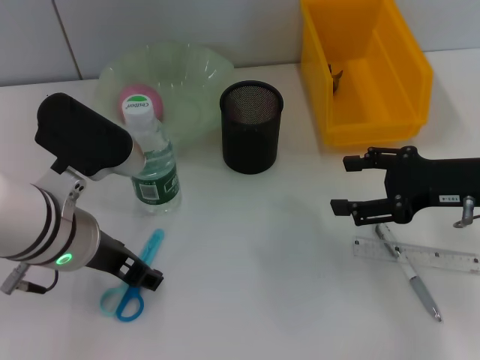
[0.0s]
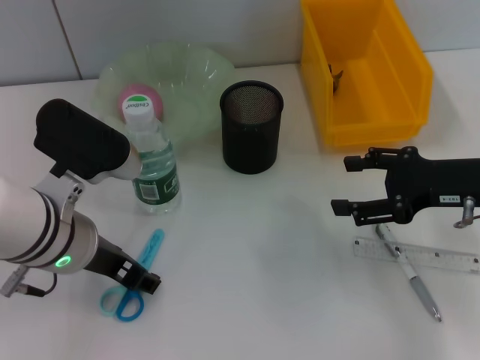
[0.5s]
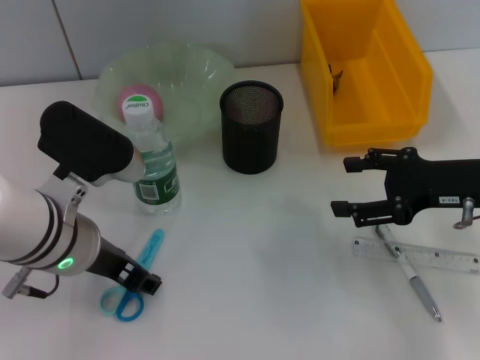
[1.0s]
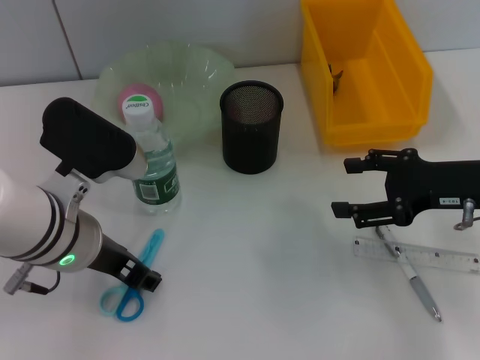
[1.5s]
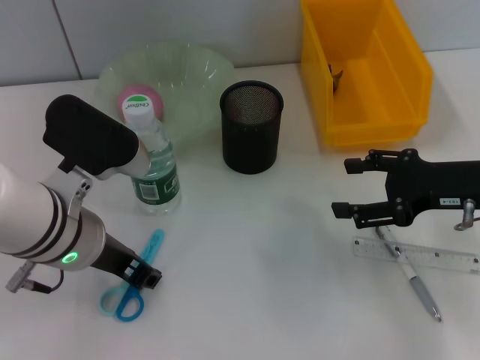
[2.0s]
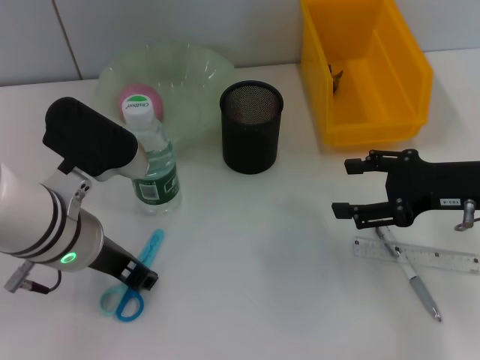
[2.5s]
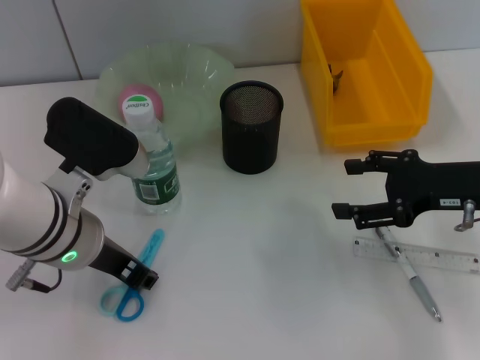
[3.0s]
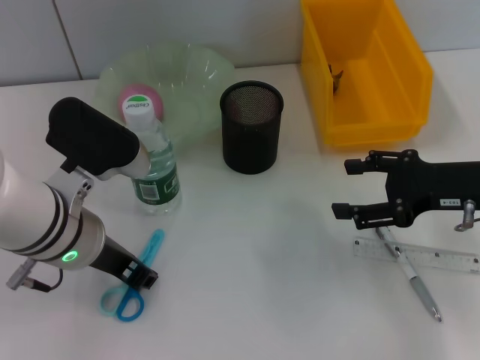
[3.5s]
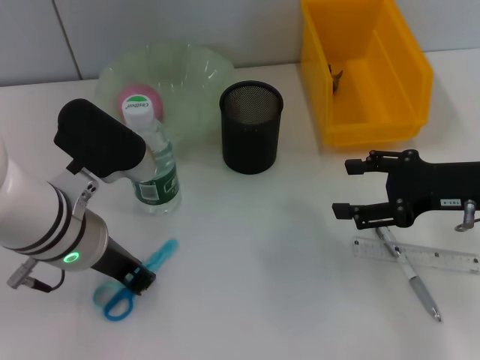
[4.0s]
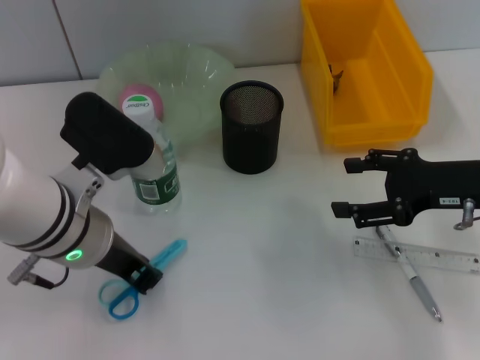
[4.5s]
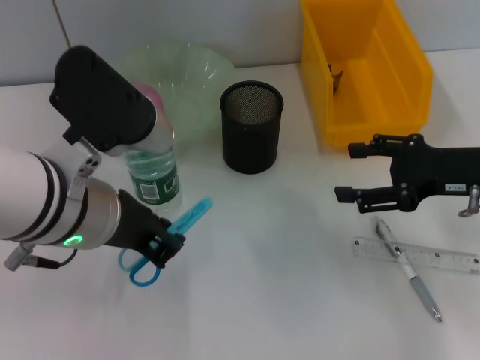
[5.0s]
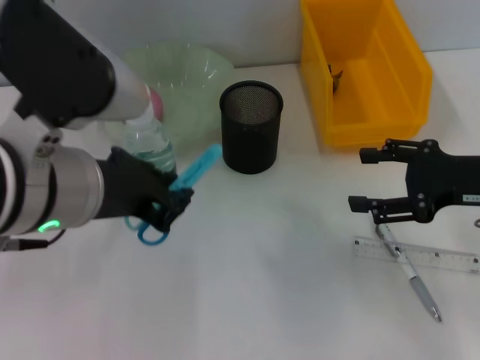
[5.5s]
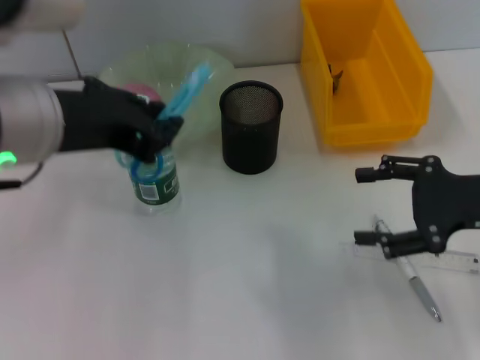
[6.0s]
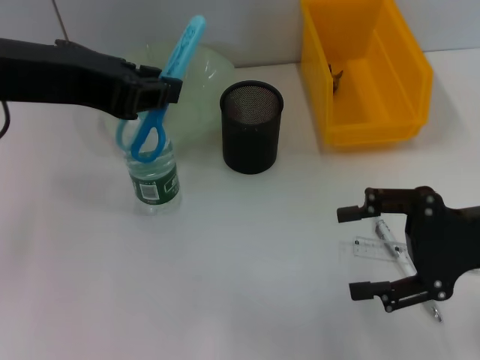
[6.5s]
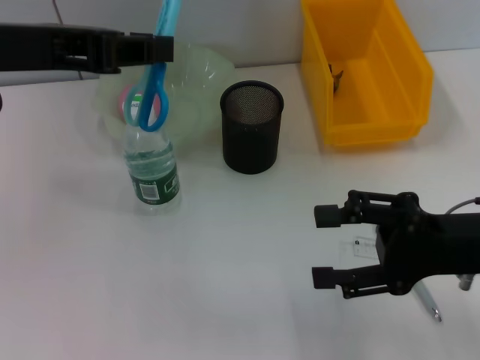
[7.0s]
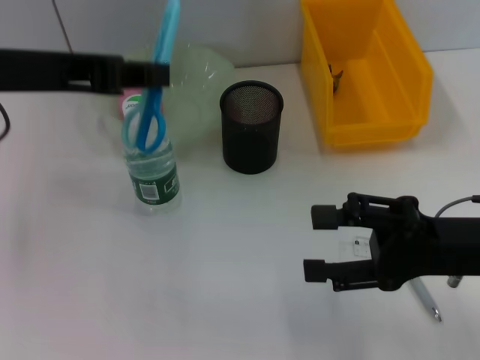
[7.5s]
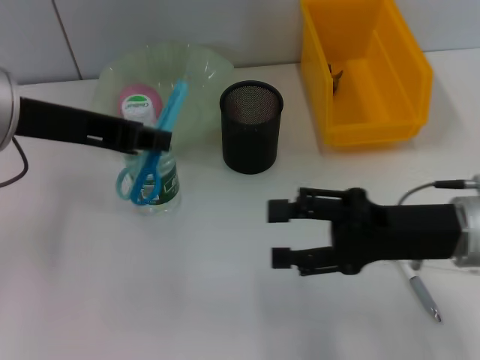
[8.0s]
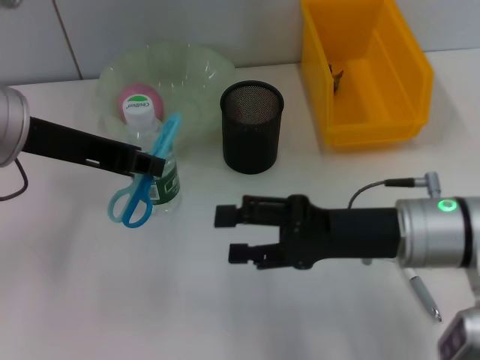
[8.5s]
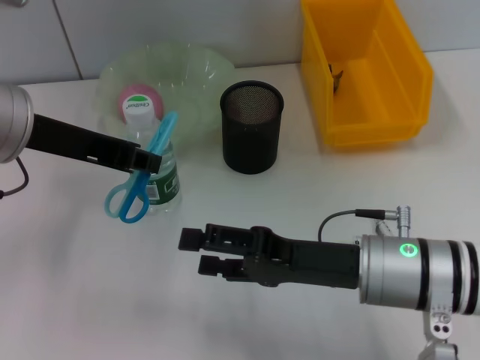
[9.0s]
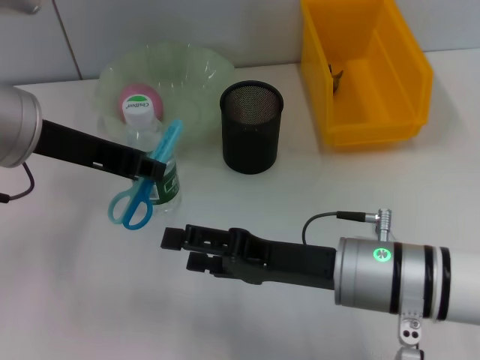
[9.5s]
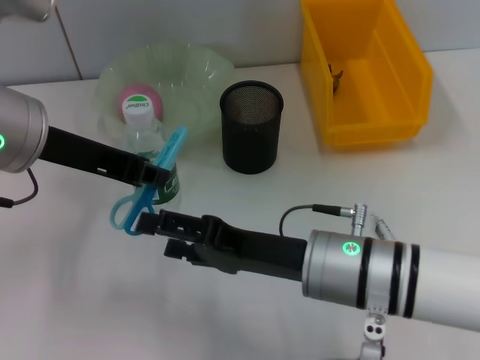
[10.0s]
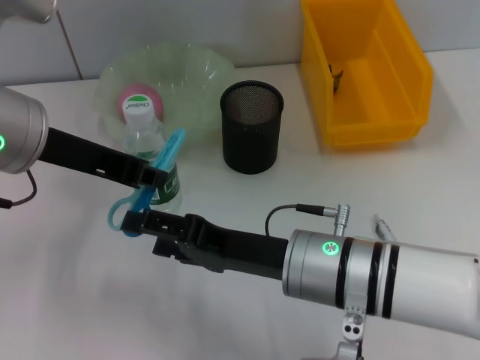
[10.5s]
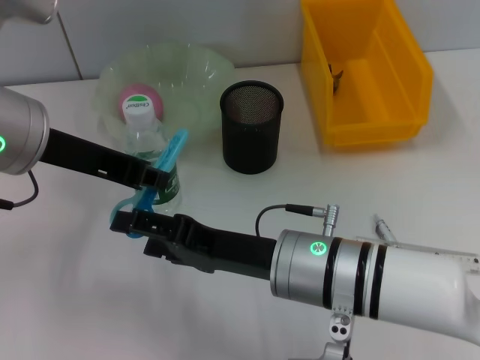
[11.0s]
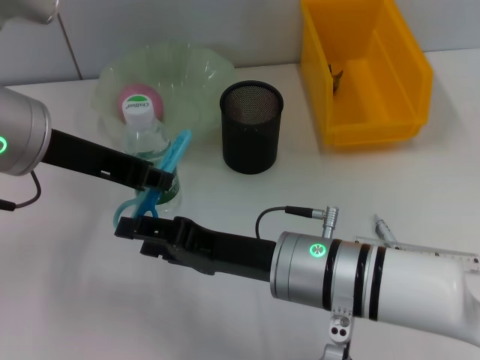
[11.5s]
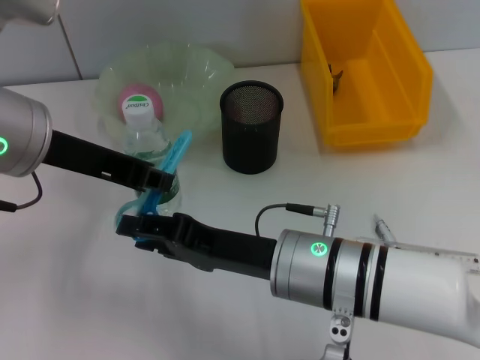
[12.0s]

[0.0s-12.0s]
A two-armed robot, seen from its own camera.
Step, 0.0s to 4.0s: Grab the blue scissors with the left hand.
0.0s to 2.0s: The two grippers keep their place.
2.0s to 4.0s: The left gripper closes its fingers.
4.0s to 6.0s: The left gripper goes about 15 cm upward.
6.0s to 8.0s: The left gripper changes place by some 5 cm; the right gripper travels to the left by some 10 cm.
8.0s to 10.0s: The right gripper goes some 10 cm to the left.
10.0s to 12.0s: The grippers make only small movements.

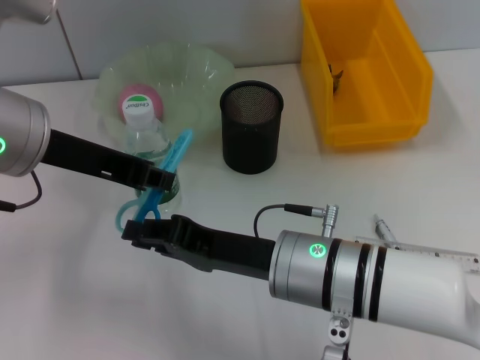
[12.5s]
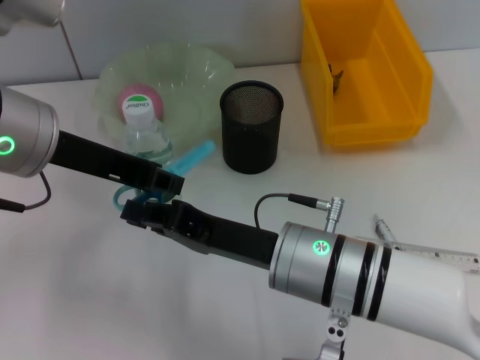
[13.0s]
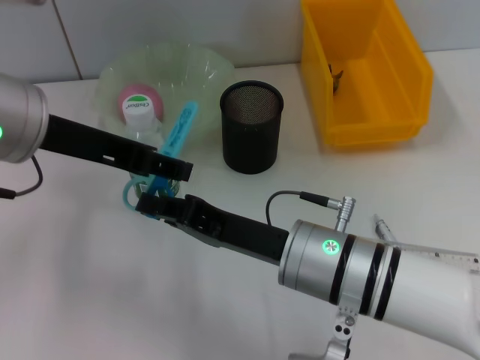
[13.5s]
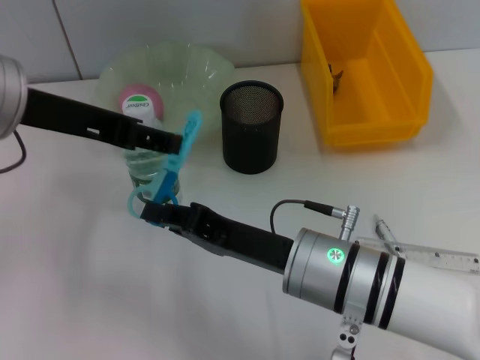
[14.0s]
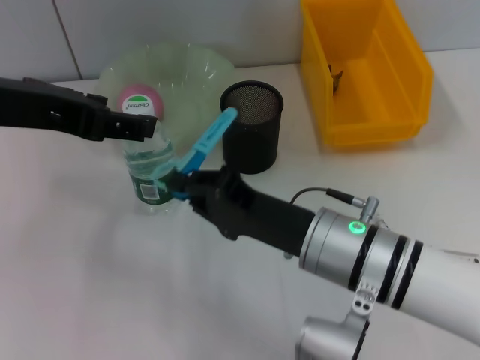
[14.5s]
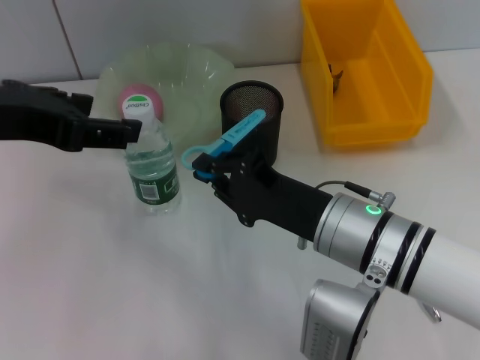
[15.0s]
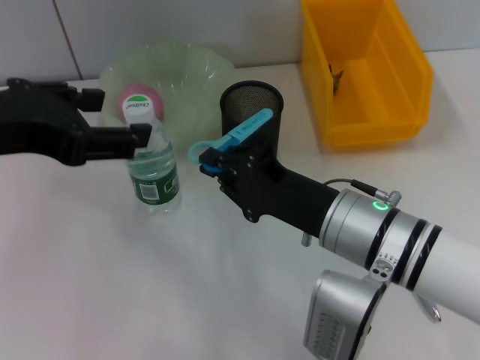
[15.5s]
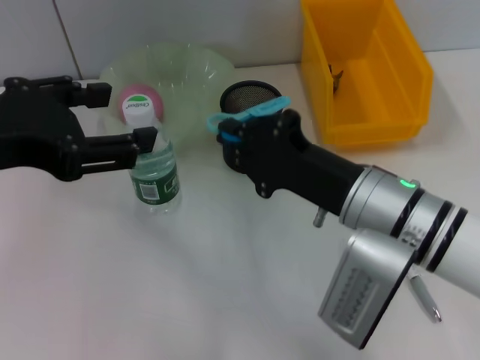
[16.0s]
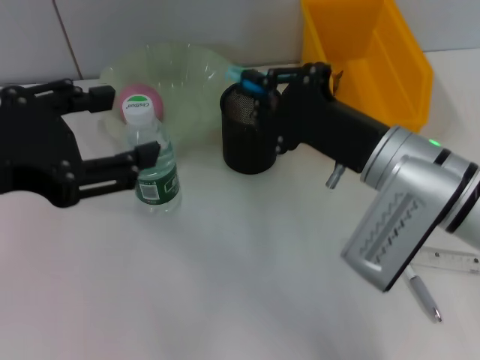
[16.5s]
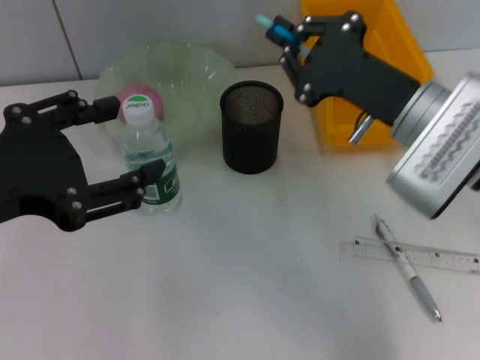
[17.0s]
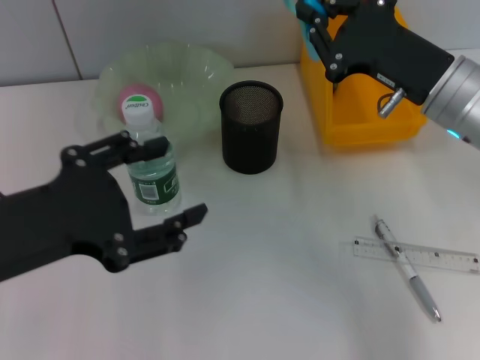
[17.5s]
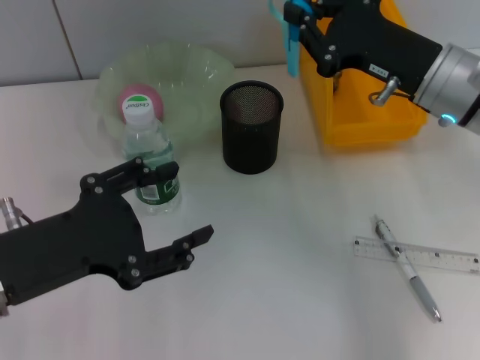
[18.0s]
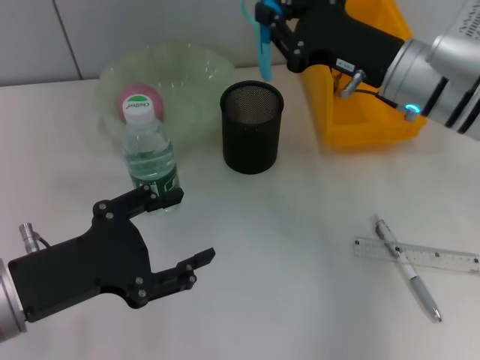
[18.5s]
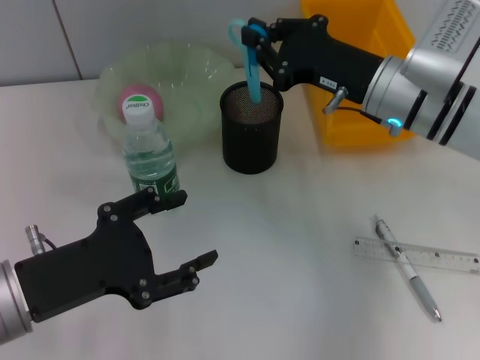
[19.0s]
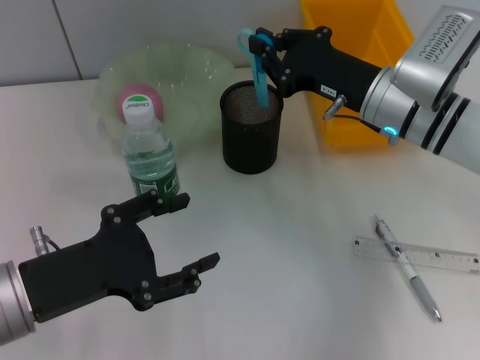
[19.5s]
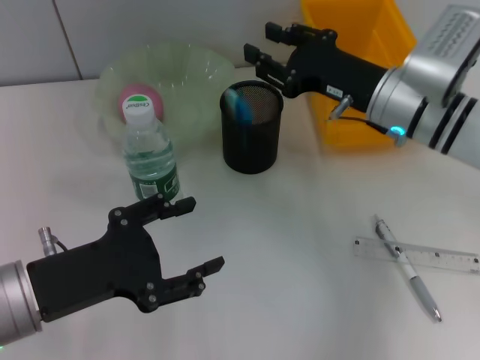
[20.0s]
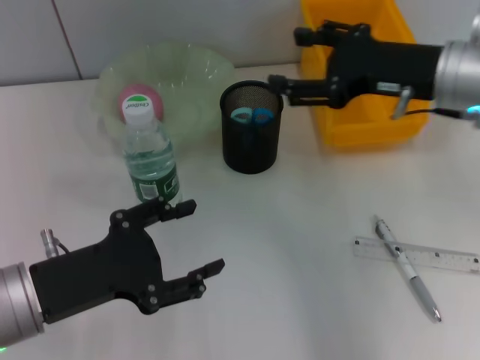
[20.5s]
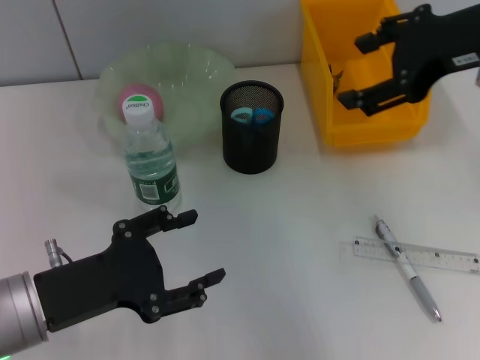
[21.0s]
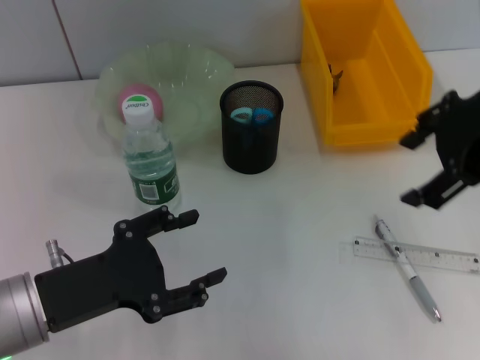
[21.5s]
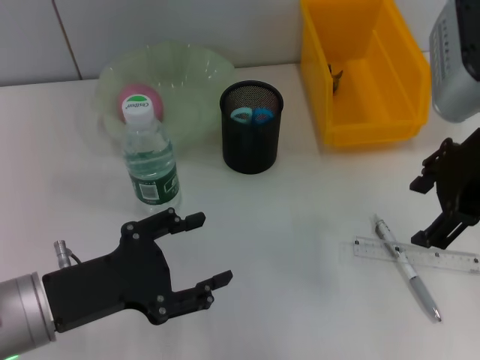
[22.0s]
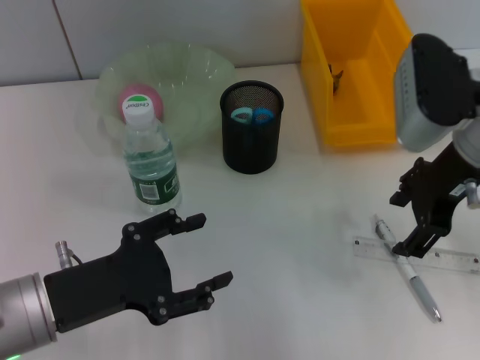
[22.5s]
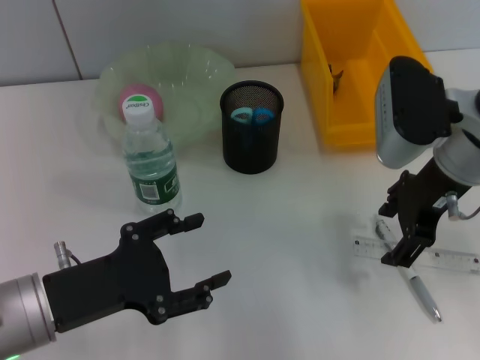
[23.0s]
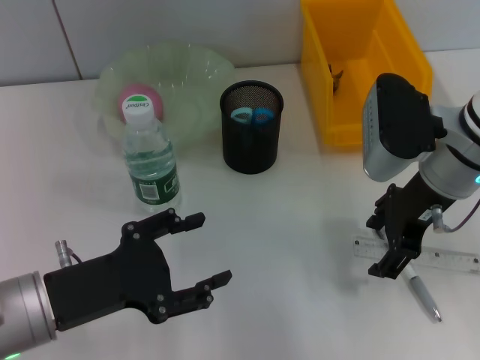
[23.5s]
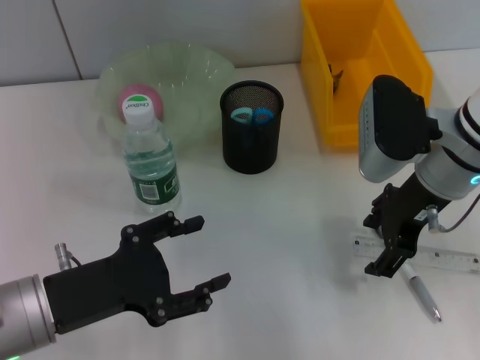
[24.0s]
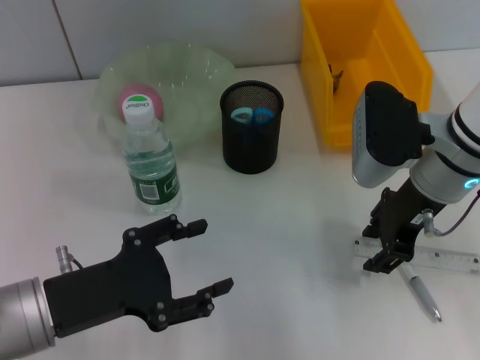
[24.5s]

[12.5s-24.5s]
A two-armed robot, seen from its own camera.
Step, 14.0s to 20.0s: Place the blue utility knife into the pen holder with the right hand.
12.5s to 14.5s: The left gripper shifts by approximately 5 cm, and opens its fingers.
14.5s to 16.5s: The right gripper is displaced to the right by about 5 cm, while the left gripper shifts approximately 5 cm backward.
16.5s to 18.5s: The left gripper is displaced downward by some 15 cm; the right gripper heads forward, covering roughly 10 cm.
18.5s to 20.5s: The right gripper moves upward, roughly 5 cm, and opens its fingers.
20.5s to 22.5s: The right gripper travels upward and back again, some 10 cm each way.
22.5s to 24.5s: The right gripper changes place by roughly 5 cm.

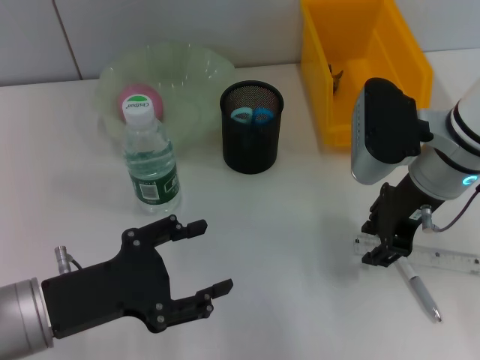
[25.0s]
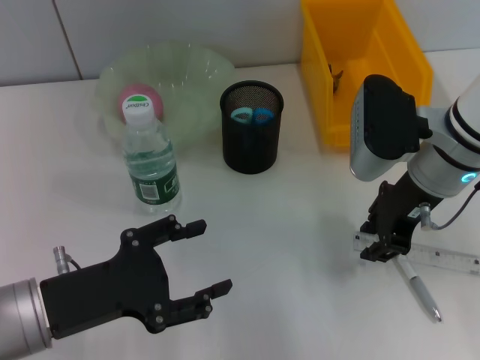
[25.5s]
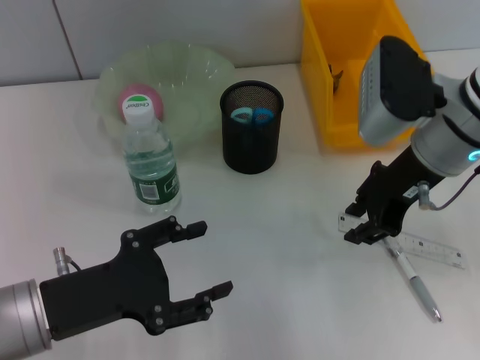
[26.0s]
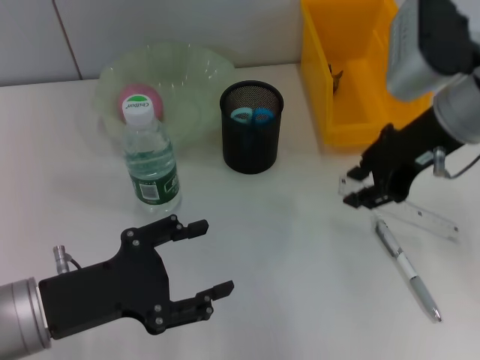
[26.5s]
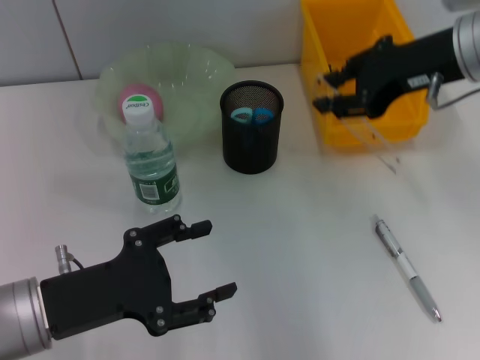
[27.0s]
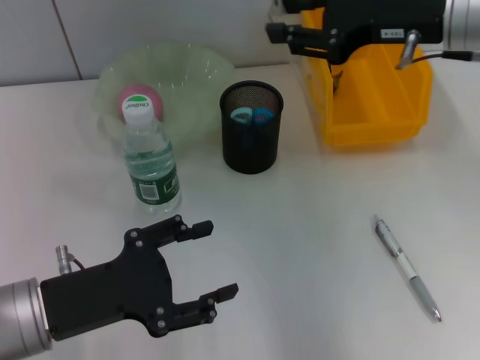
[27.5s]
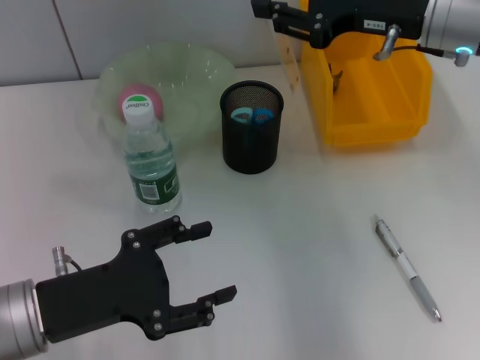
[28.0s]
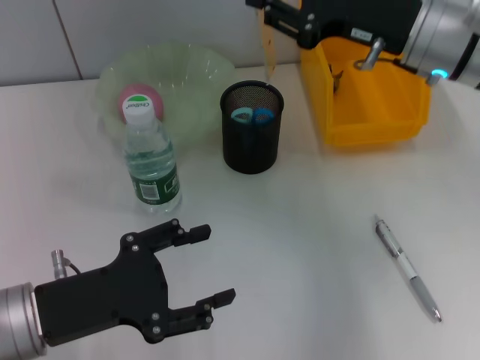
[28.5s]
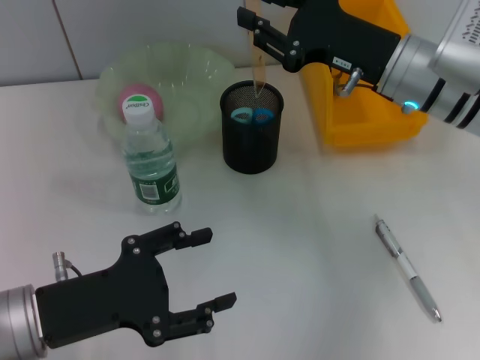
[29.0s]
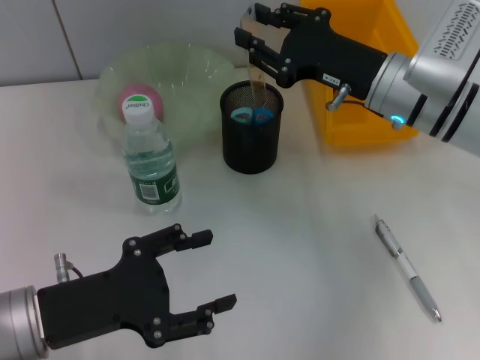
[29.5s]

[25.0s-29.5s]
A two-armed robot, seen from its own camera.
25.0s to 27.0s: The right gripper moves upward, approximately 10 cm.
27.0s to 29.5s: The right gripper goes roughly 10 cm downward.
